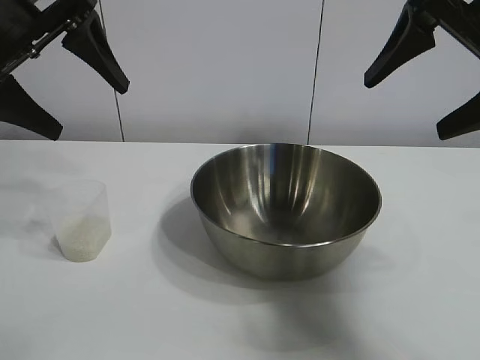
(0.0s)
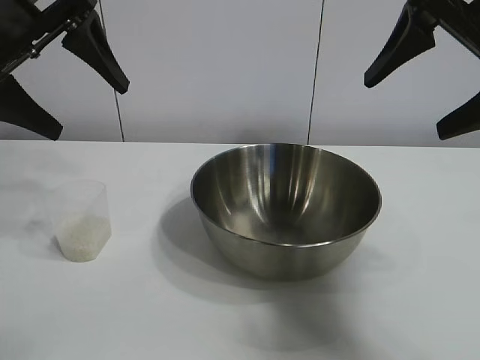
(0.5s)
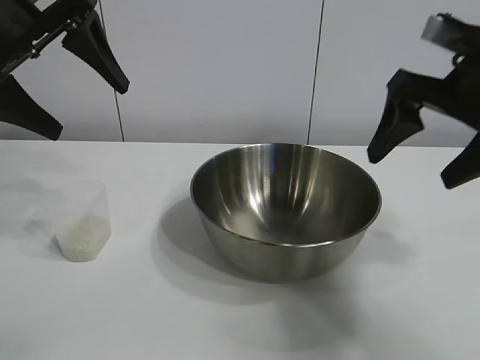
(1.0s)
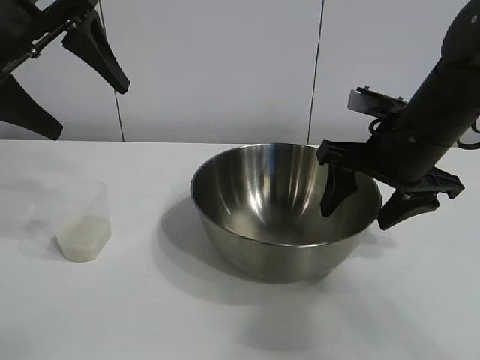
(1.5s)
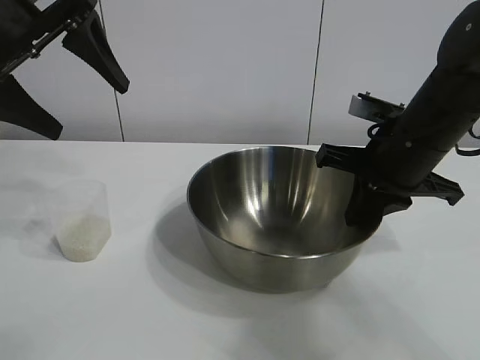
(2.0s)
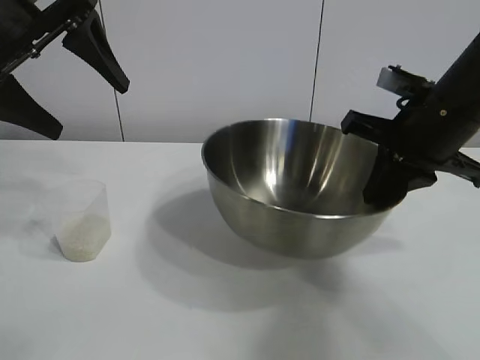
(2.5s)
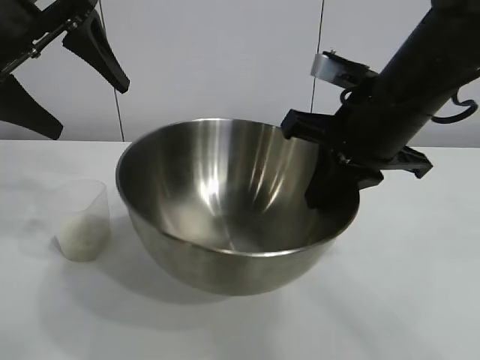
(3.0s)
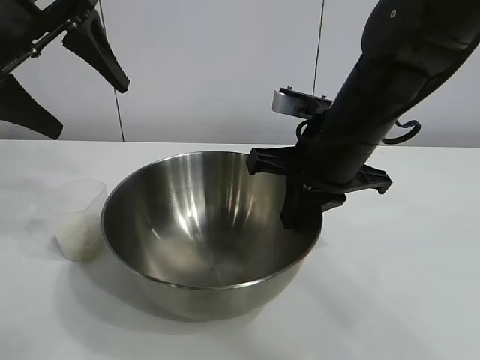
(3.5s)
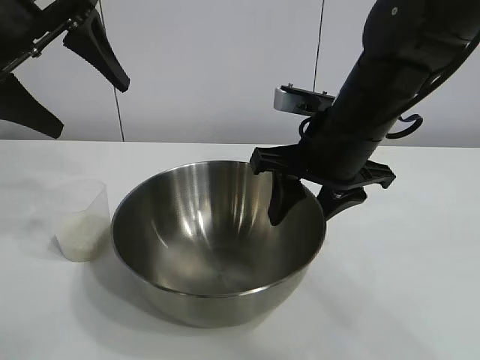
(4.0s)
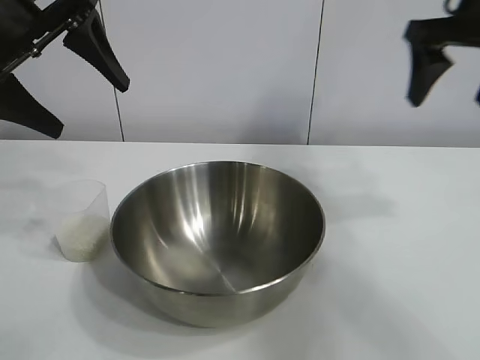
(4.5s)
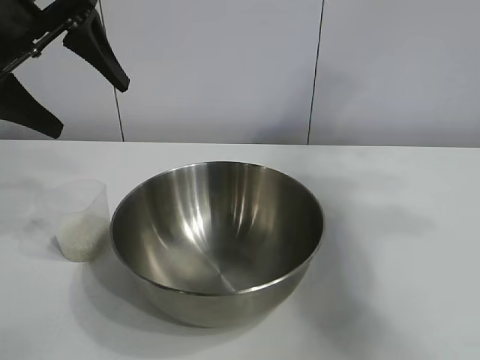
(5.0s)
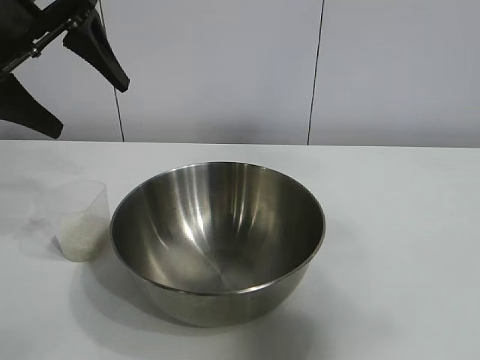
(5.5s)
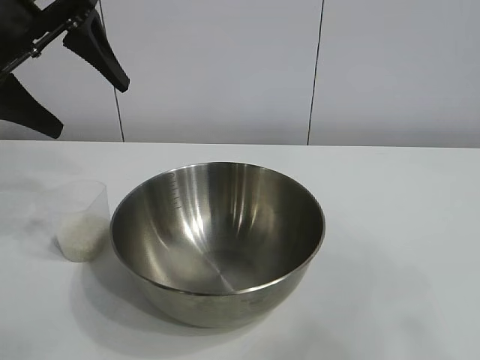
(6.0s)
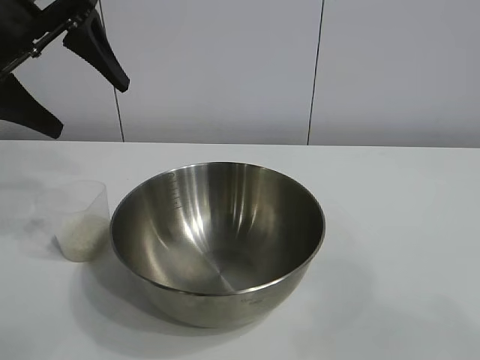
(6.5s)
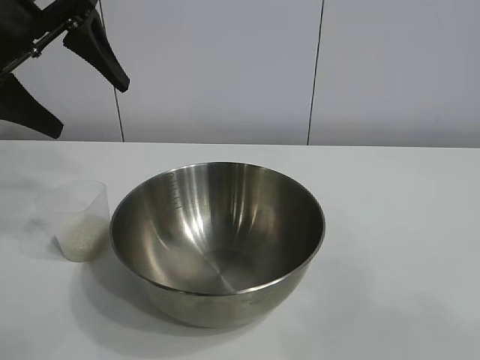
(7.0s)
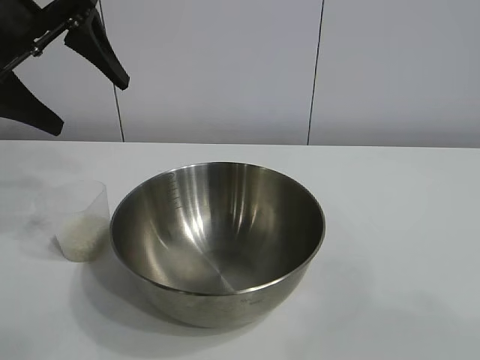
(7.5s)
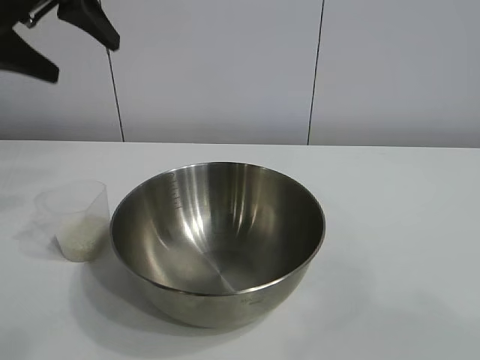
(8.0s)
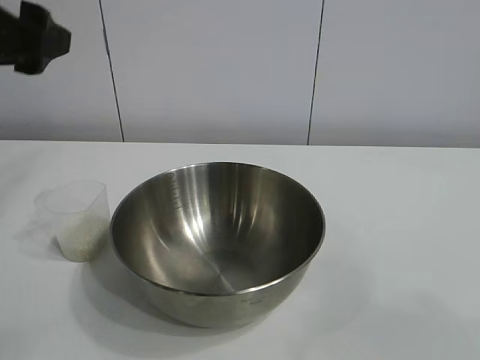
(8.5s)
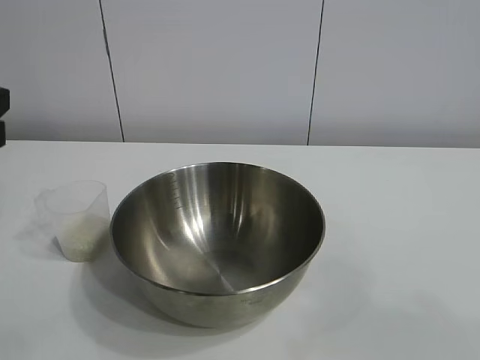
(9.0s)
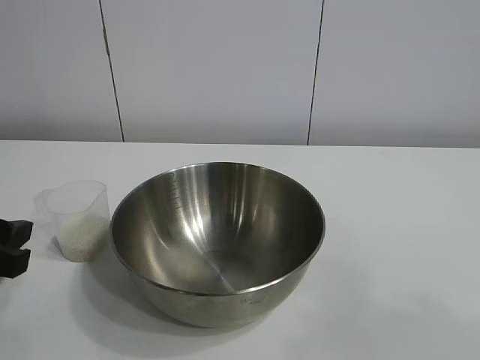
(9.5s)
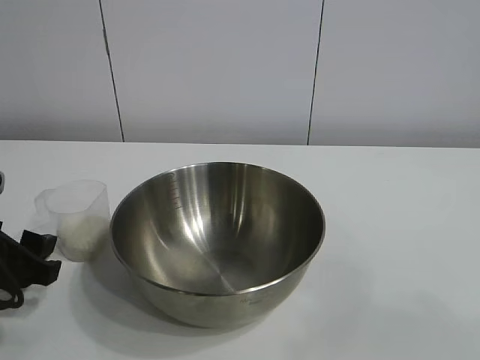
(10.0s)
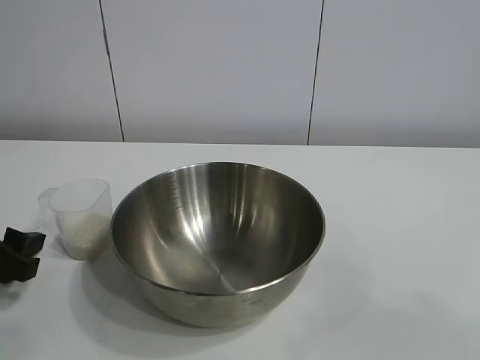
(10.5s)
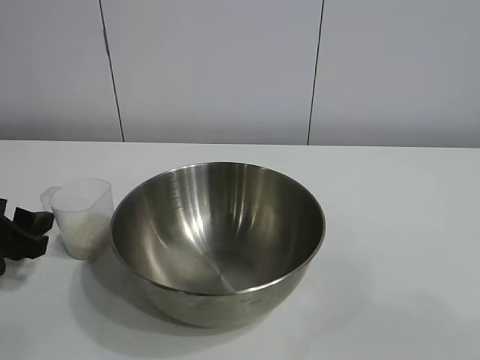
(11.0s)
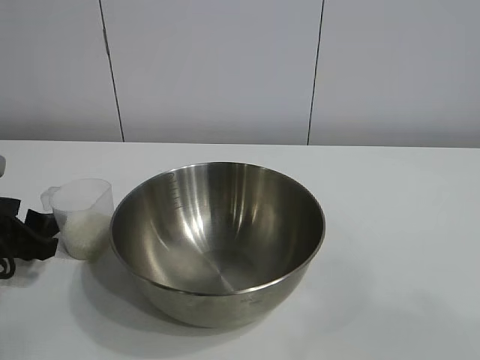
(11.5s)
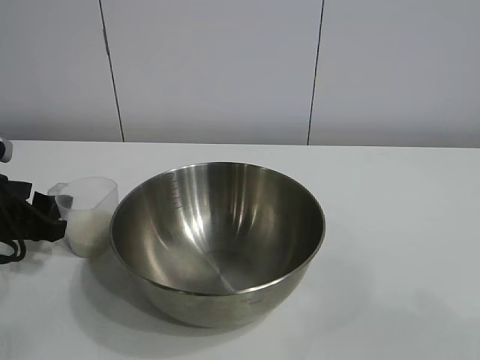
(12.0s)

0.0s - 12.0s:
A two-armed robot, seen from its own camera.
Task of the whole recording: the right gripper grasp the rice container and place it in the center of the table, the left gripper grasp the rice scoop and pour the rice into the rice container.
Step, 1.0s - 4.0s: Move the bowl in the center of view with right gripper.

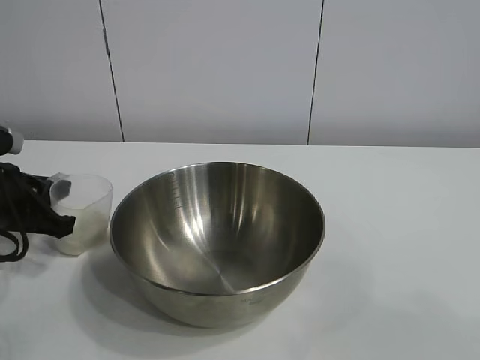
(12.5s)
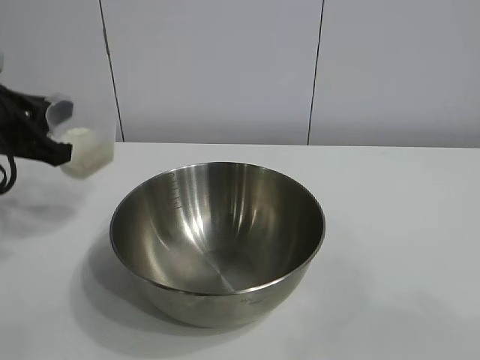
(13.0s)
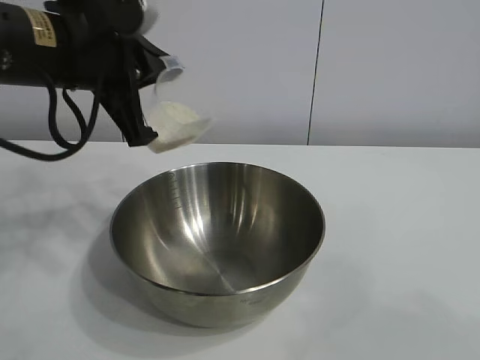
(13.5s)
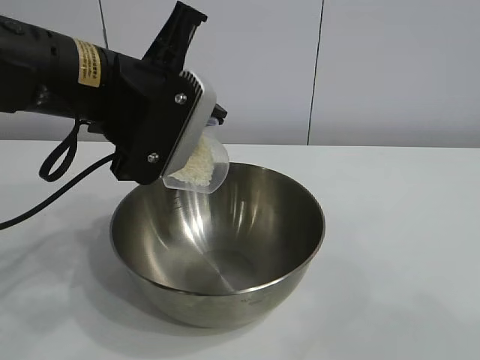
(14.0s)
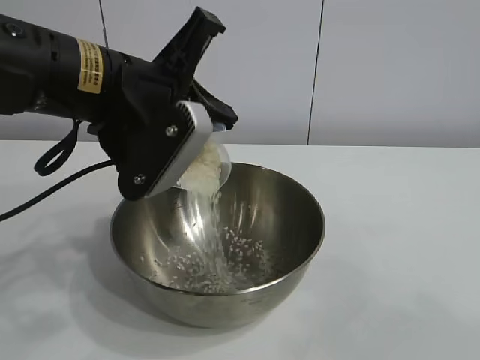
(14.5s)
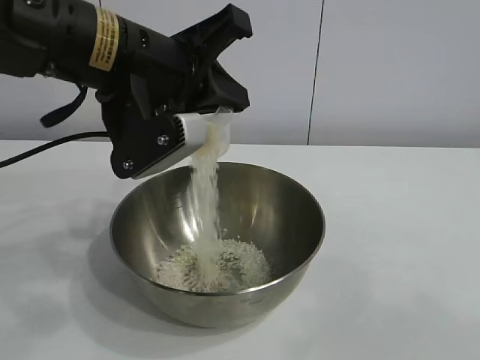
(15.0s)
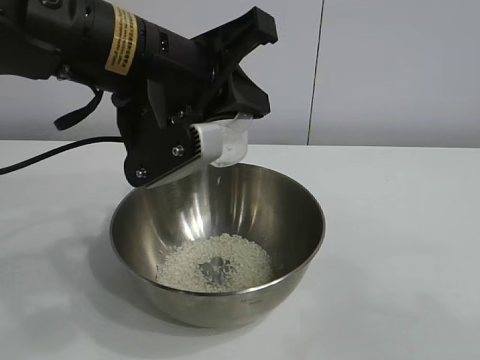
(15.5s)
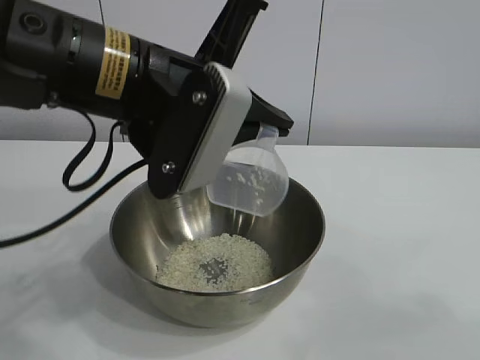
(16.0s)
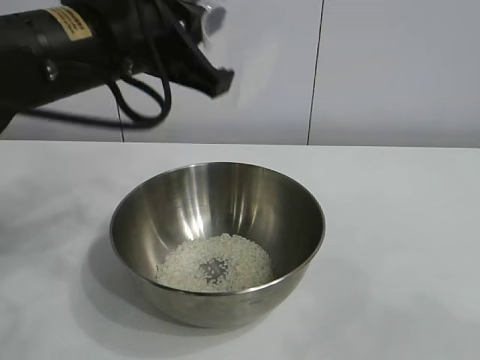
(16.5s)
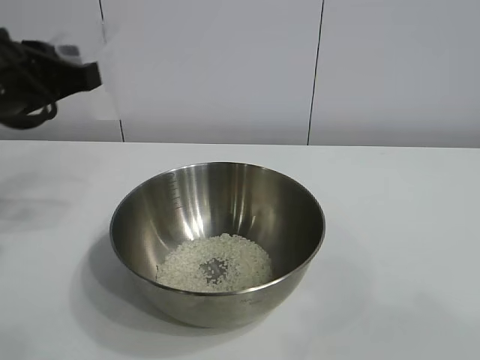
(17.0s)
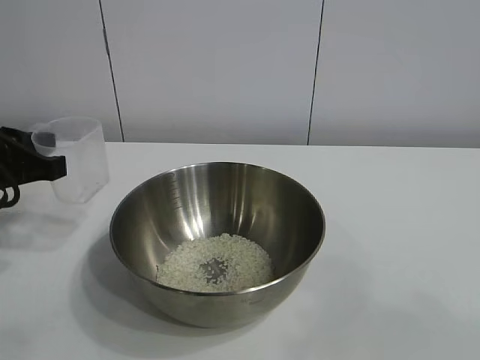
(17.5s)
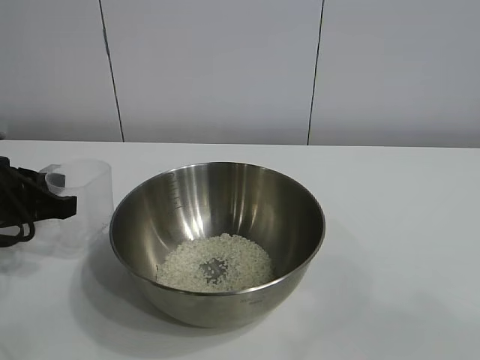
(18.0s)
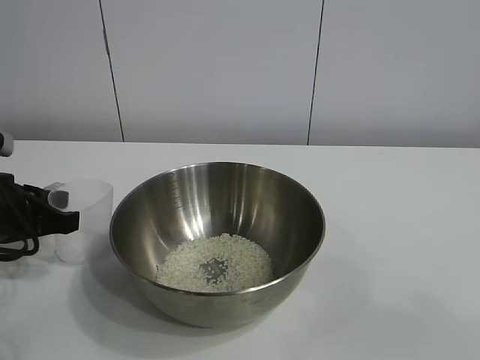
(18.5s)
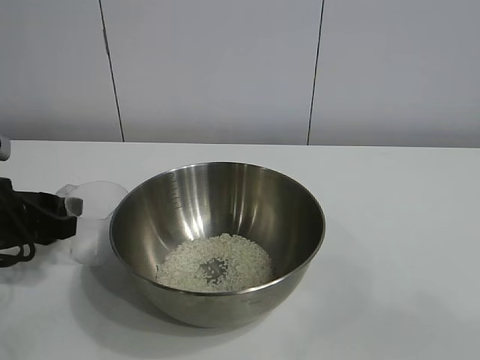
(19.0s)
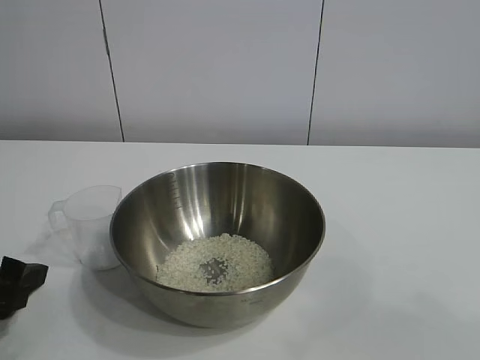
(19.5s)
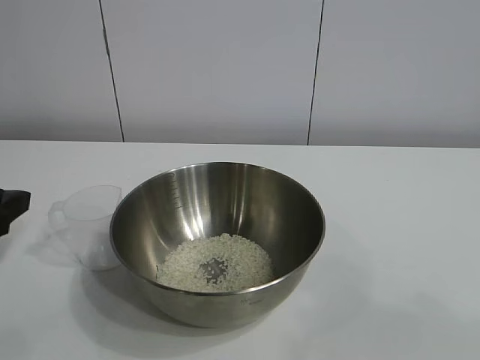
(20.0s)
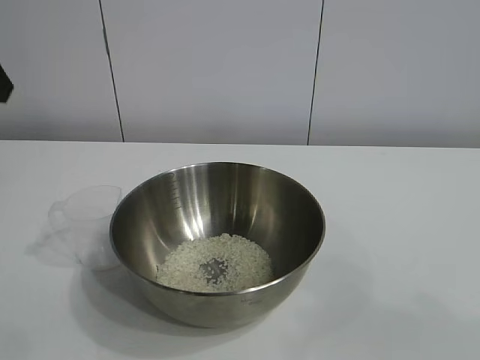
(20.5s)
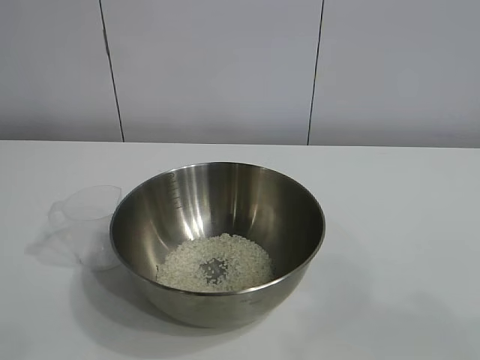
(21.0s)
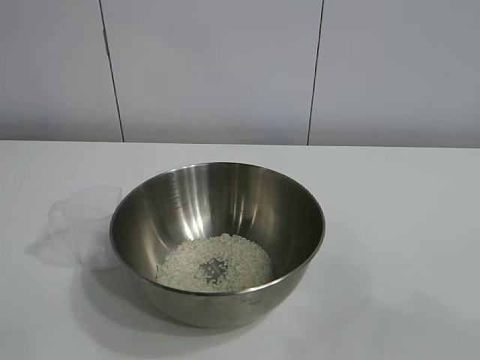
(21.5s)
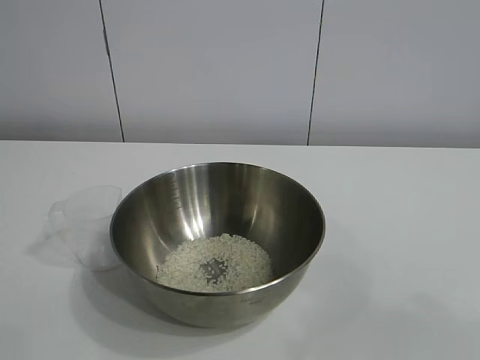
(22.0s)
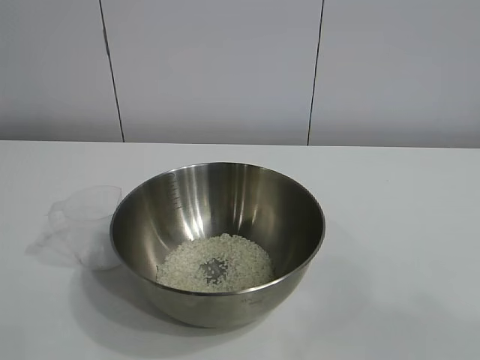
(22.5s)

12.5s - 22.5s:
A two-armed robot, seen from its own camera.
Task of the whole recording: the right gripper grasp the rice container and place it in the center of the table, the left gripper grasp the rice scoop and pour the rice into the rice container.
Step, 12.5s - 15.5s: Pour the rice from the cup into the bowl with the left gripper.
Step, 16.0s - 19.0s: Place the cup on the table with the left gripper.
